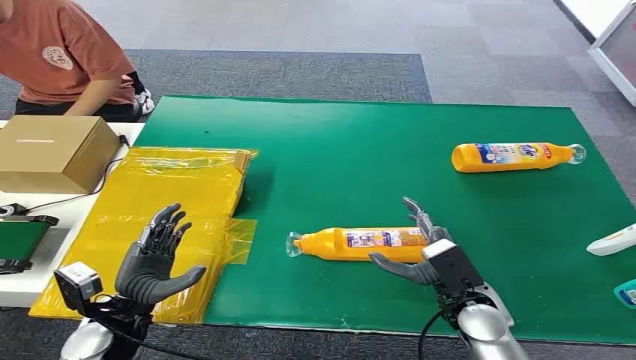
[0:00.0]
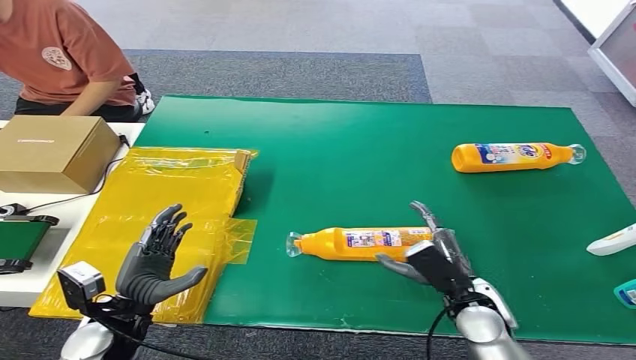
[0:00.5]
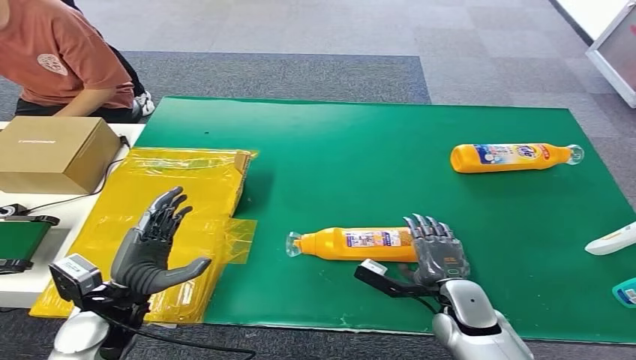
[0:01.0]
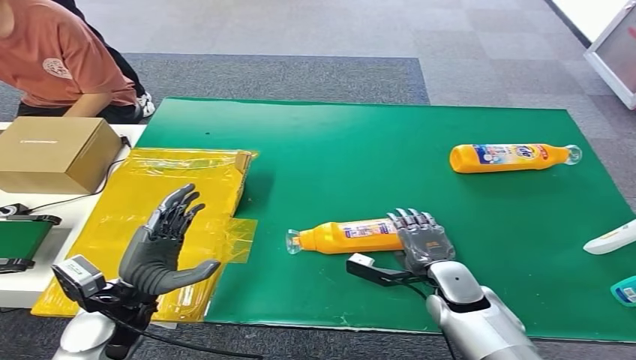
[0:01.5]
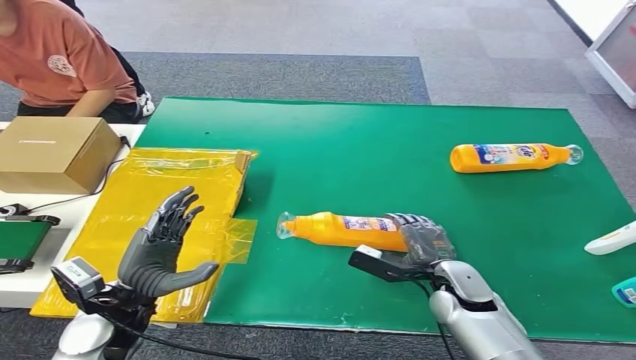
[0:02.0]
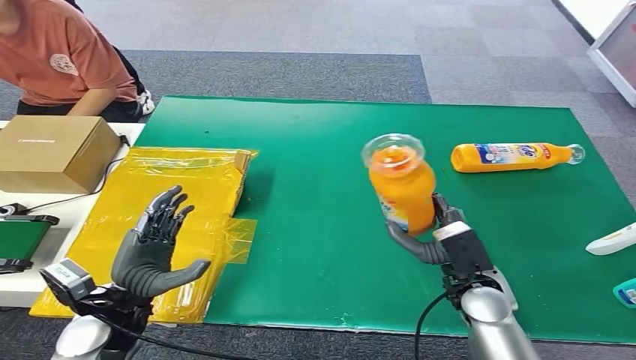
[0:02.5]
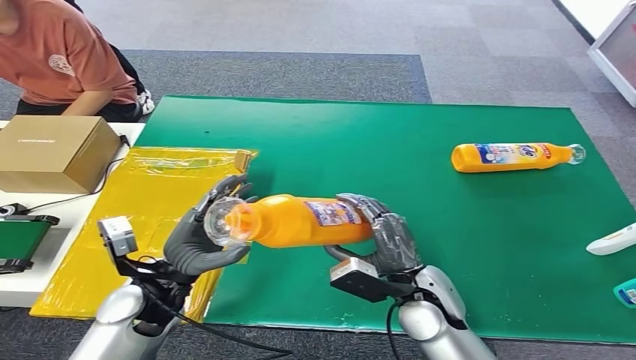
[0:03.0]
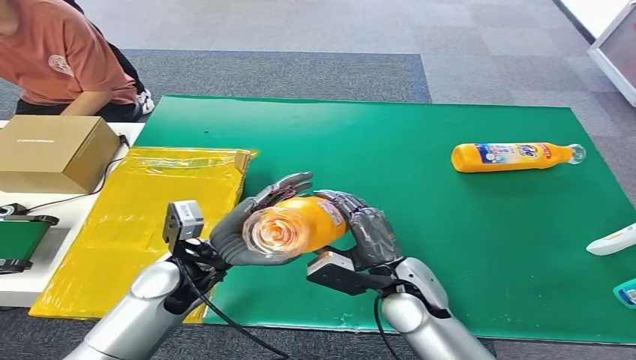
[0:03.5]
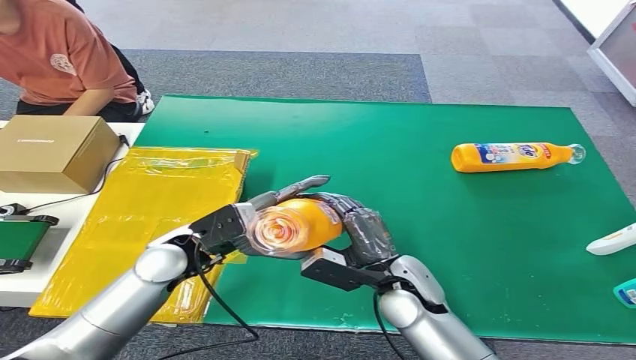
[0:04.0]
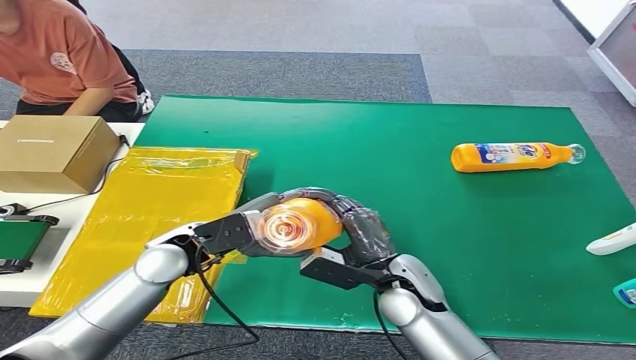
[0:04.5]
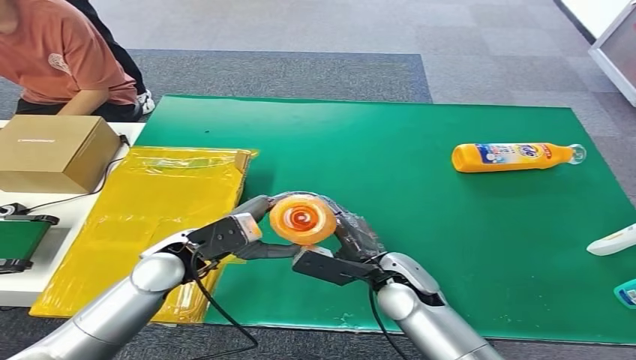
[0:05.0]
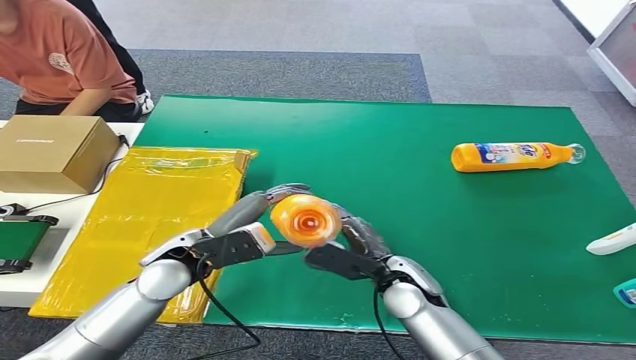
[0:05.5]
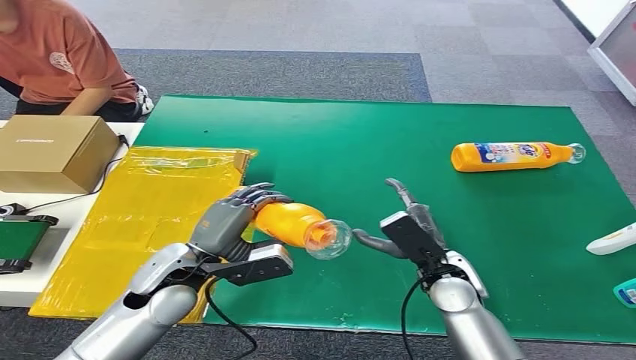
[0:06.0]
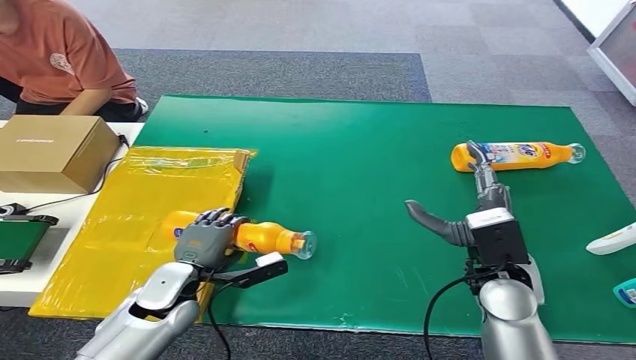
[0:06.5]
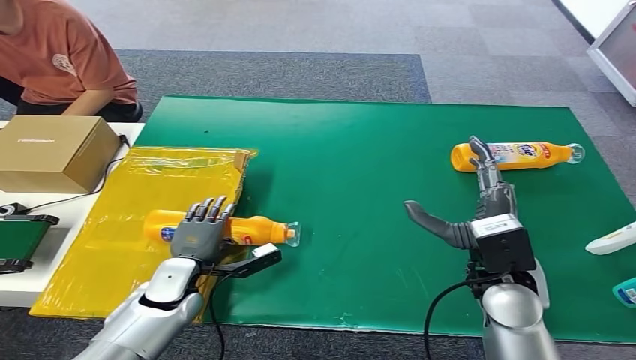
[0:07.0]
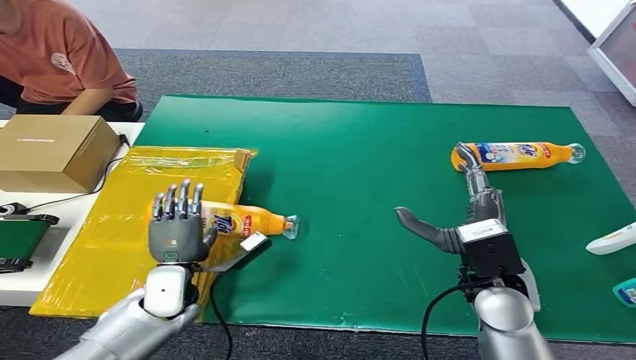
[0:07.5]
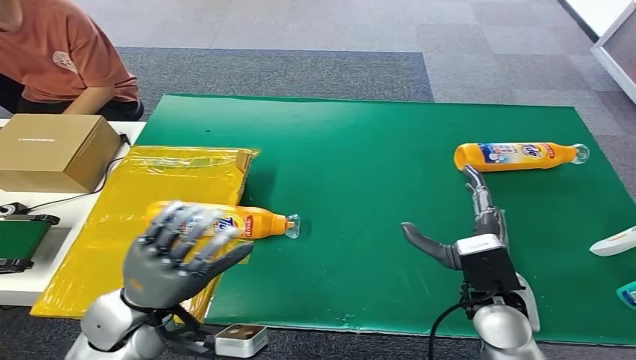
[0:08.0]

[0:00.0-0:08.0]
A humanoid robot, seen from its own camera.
Step, 0:00.0 to 0:02.5: Pick up the bottle from the table.
Step, 0:03.0 to 0:08.0: Turn the bottle to the front side.
0:04.0 to 0:06.0: The right hand is displaced to the right by about 10 cm.

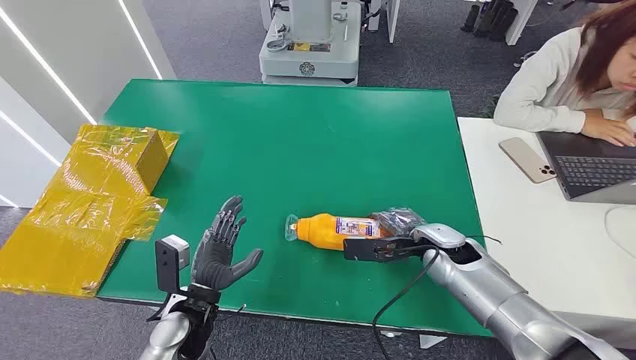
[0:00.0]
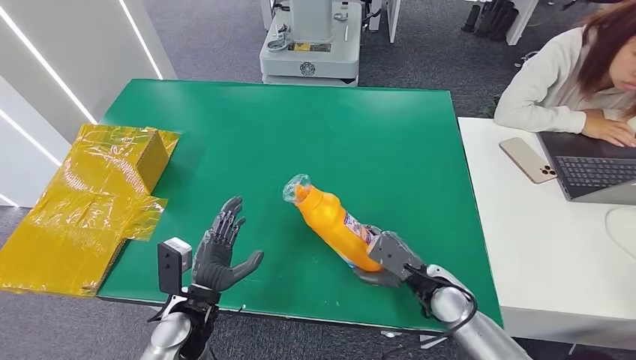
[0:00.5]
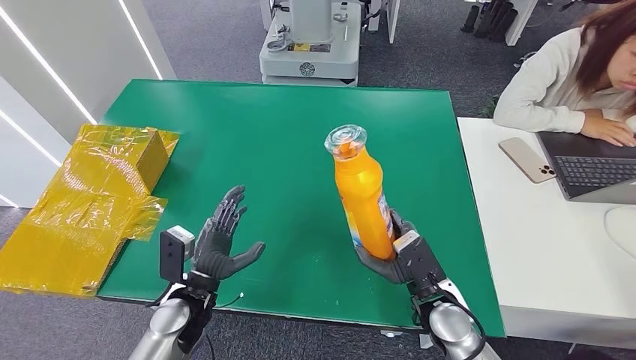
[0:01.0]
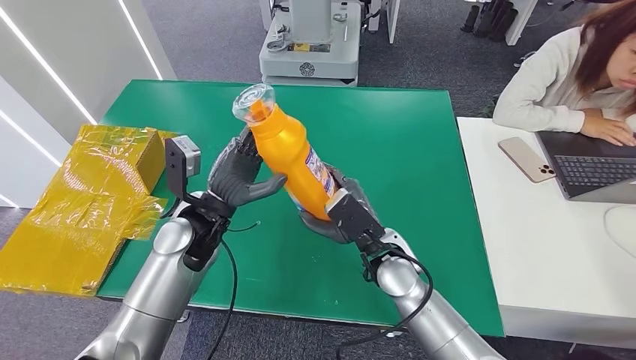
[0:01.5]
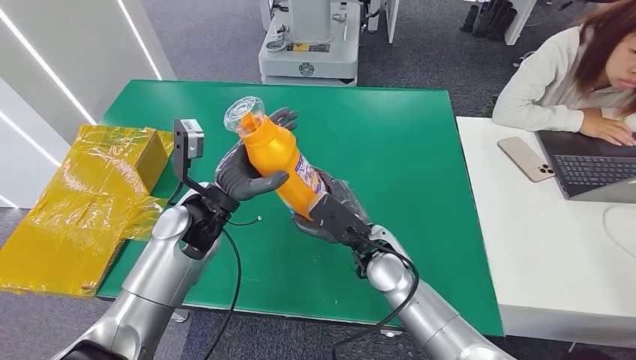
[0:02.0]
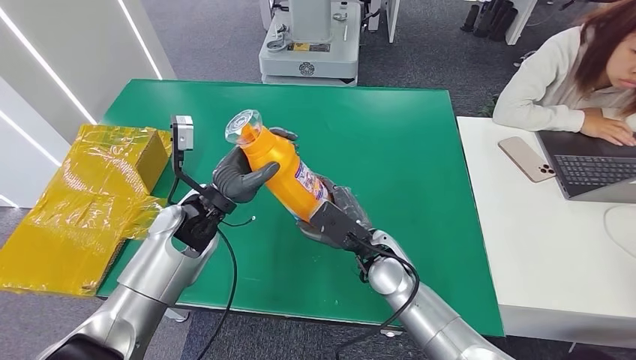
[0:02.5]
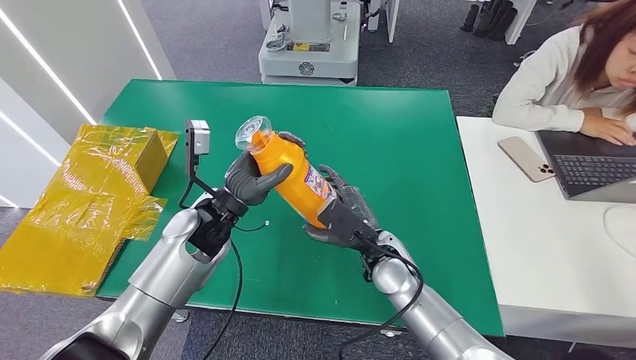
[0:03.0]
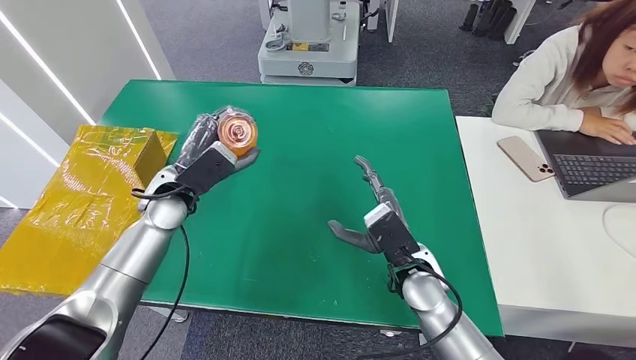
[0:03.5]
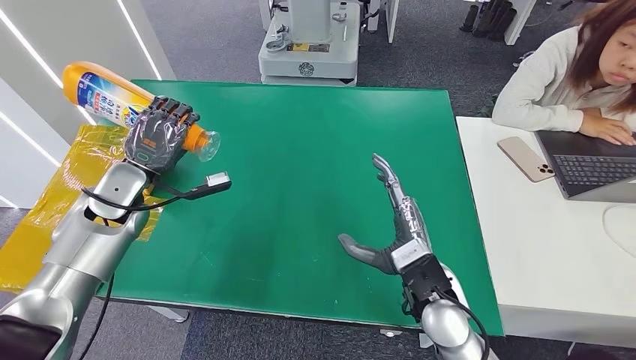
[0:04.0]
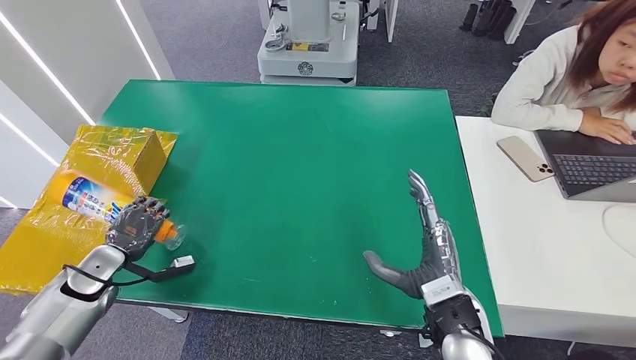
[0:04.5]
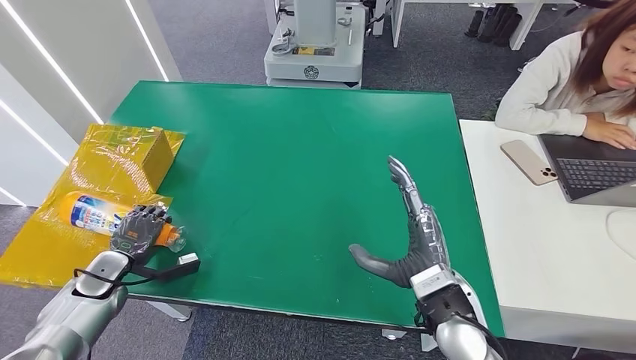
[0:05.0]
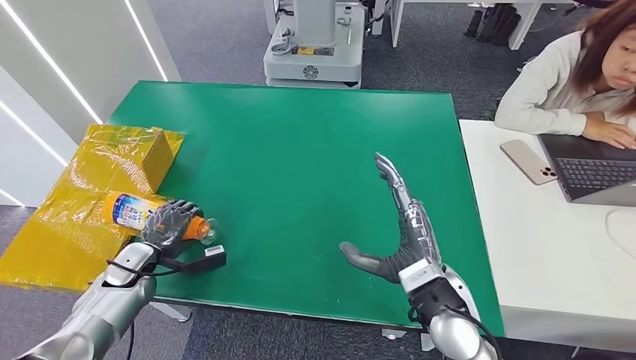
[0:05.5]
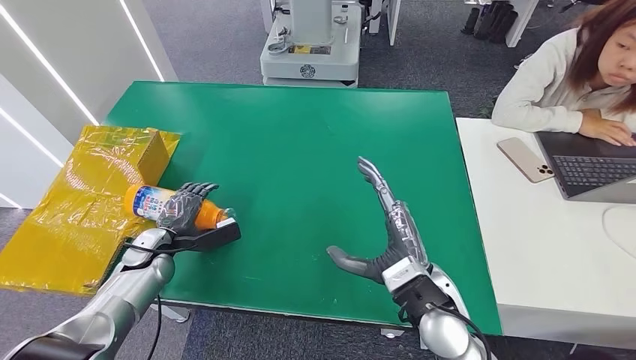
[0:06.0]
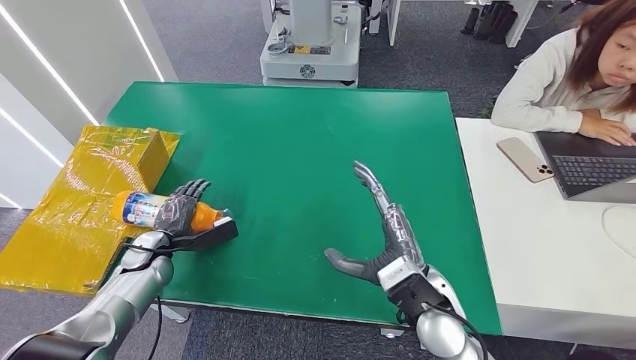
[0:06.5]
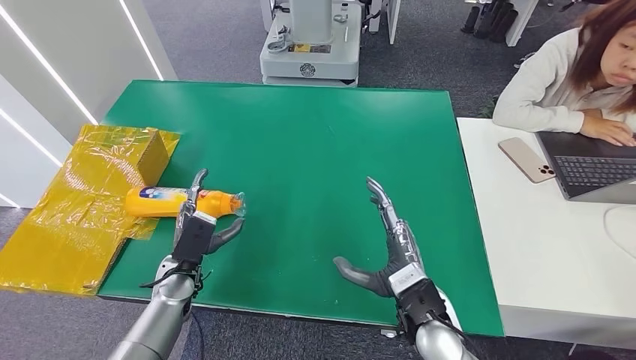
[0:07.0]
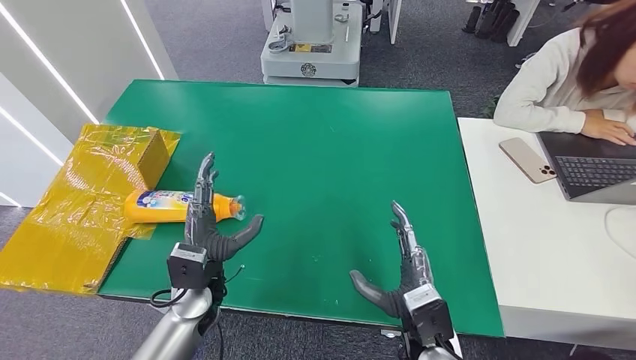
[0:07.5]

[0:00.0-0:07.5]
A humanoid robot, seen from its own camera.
Step, 0:00.0 to 0:02.0: Pick up the bottle from the table.
Step, 0:02.5 to 0:07.5: Turn the bottle to the front side.
0:05.5 to 0:07.5: The right hand moves downward, approximately 10 cm; the left hand travels to the right by some 20 cm.
